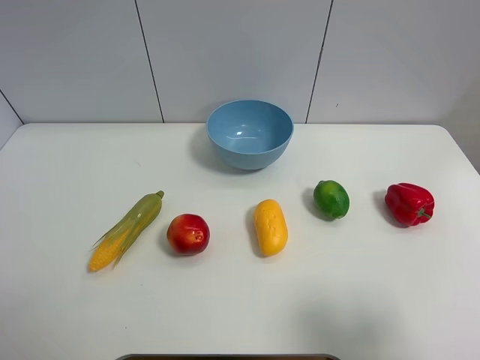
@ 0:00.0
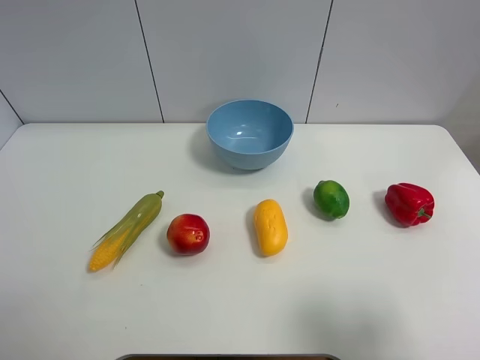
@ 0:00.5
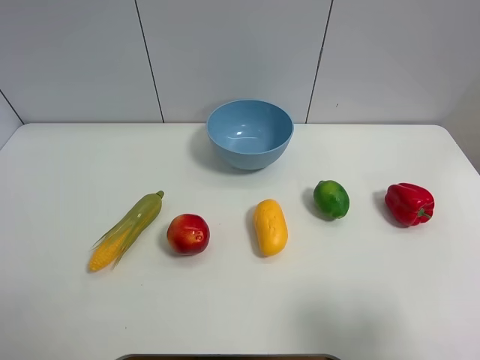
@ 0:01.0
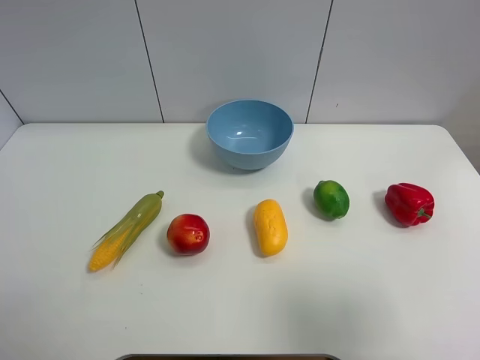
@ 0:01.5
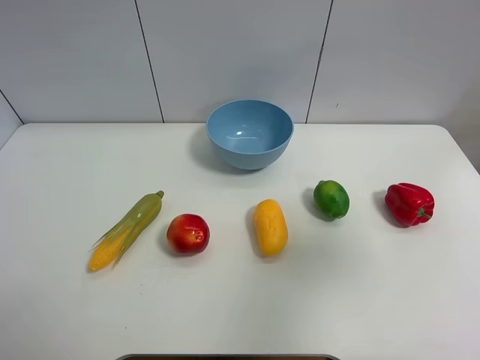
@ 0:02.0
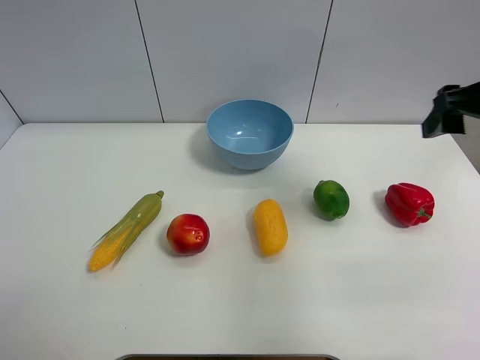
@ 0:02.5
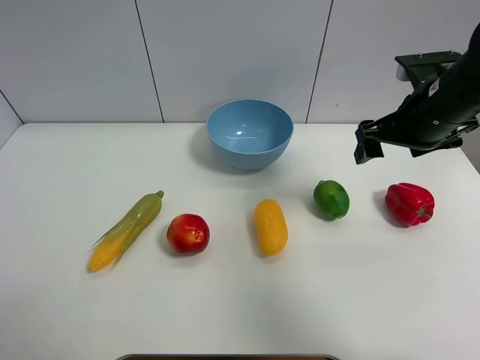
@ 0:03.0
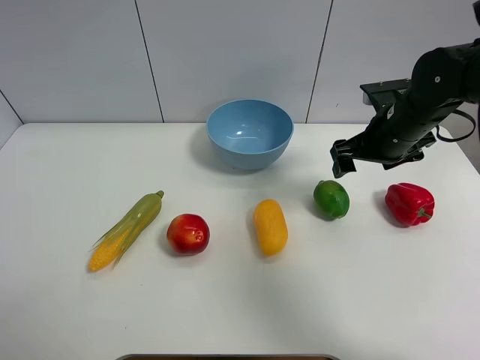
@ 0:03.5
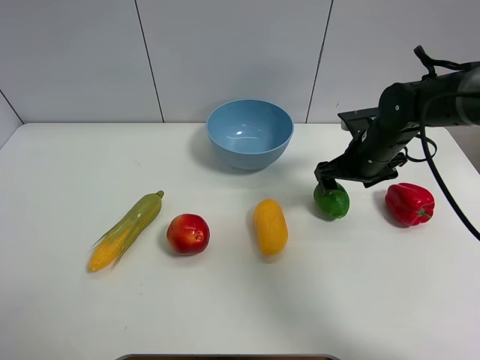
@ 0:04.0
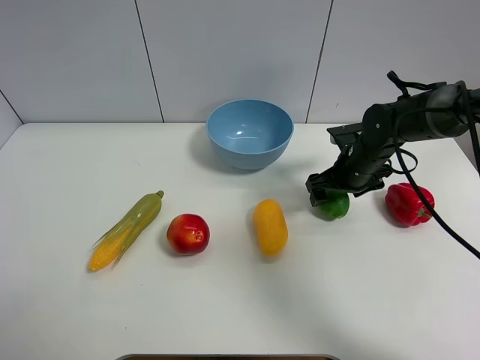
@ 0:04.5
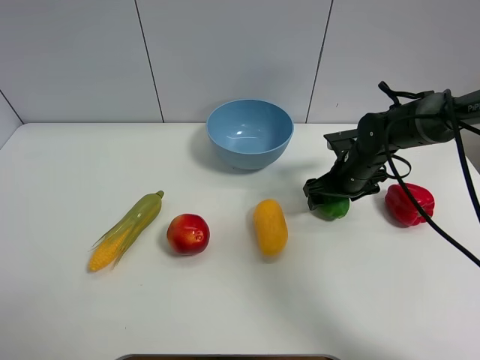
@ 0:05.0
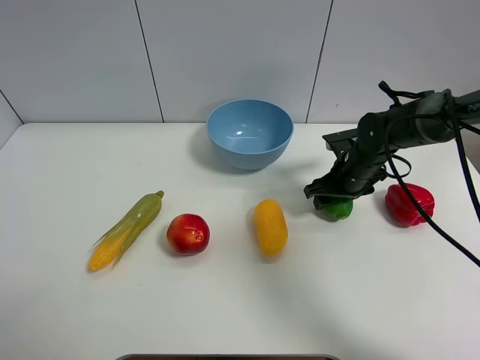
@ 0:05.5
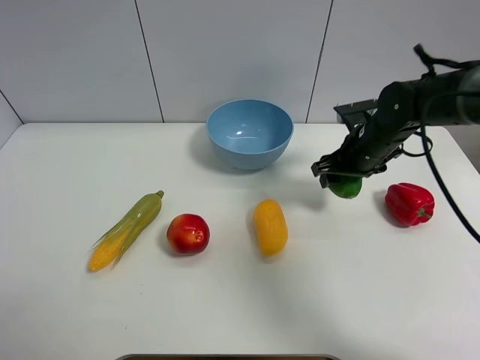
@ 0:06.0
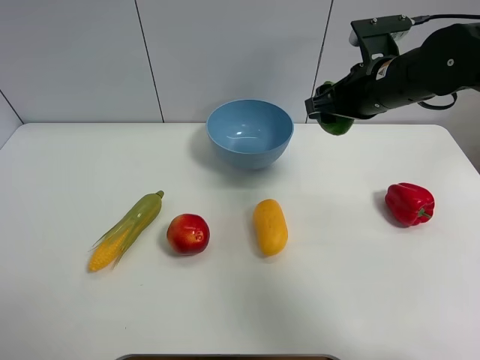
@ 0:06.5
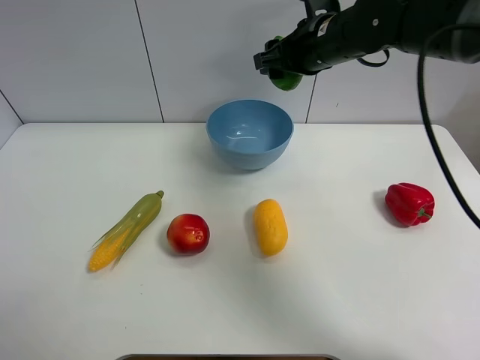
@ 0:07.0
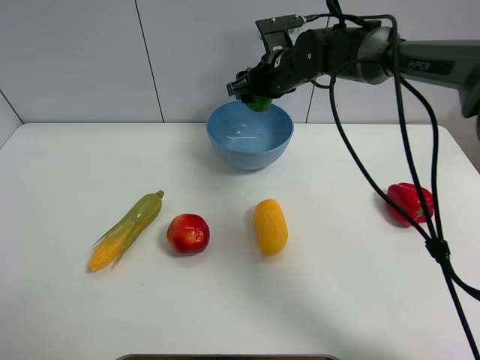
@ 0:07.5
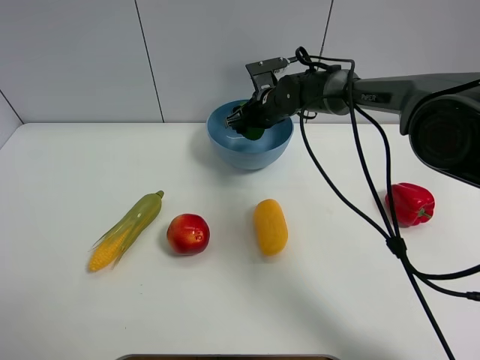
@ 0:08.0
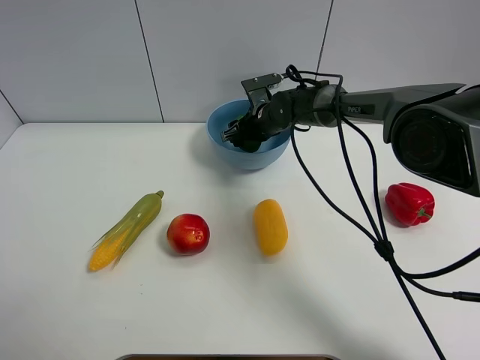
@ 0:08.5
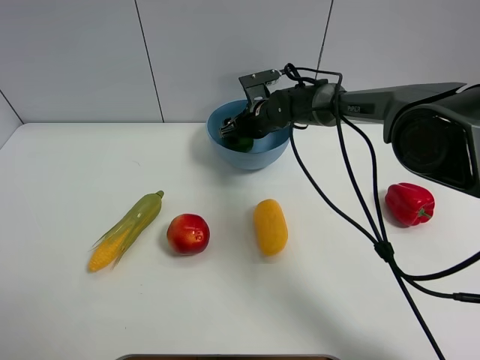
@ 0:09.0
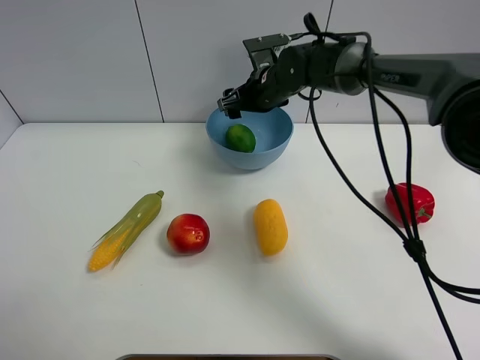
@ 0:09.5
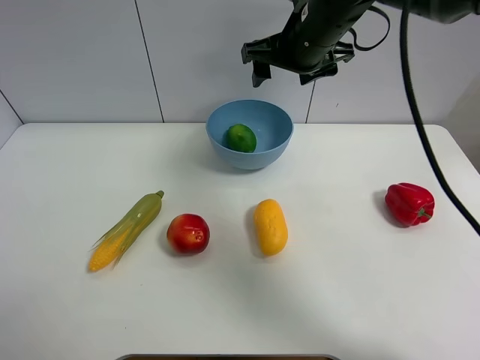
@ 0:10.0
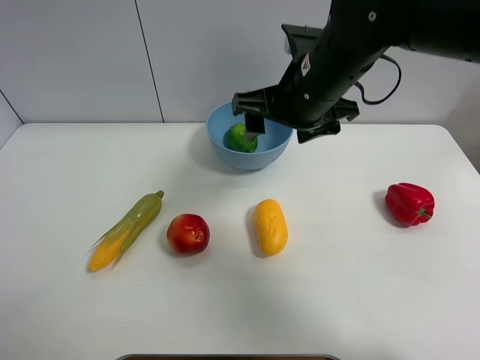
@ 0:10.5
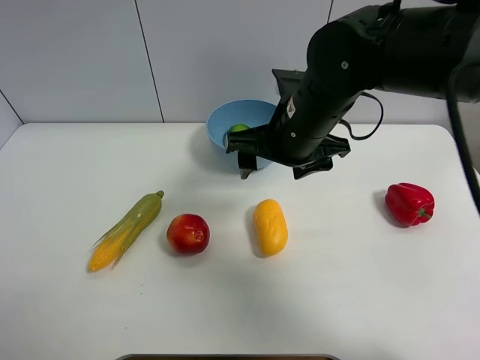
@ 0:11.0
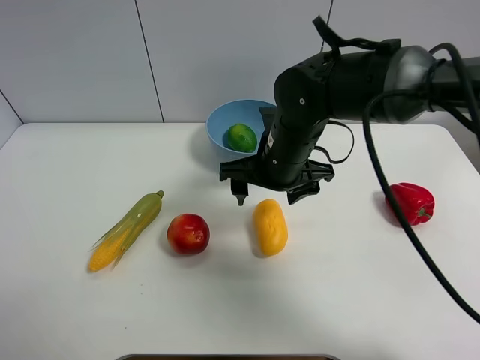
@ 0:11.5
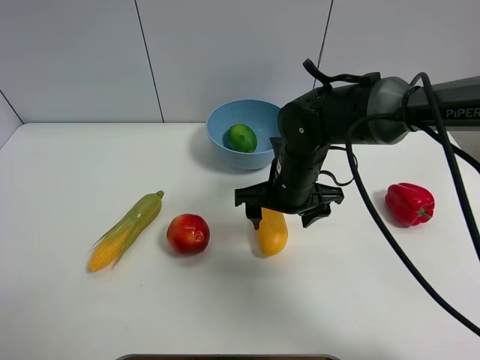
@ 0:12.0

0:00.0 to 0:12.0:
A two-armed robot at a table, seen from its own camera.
Task of the whole recording: Put the three fruits on the table into a bowl.
Step, 0:00.0 to 0:05.0: Grasp the green lemon with right gripper.
Step, 0:05.5 to 0:09.0: Place the green lemon in the blue bowl with right gripper.
0:00.0 to 0:02.0: The right gripper heads forward and upward, covering approximately 15 cm.
0:02.0 to 0:04.0: The right gripper moves forward and downward, roughly 35 cm.
0:04.0 to 0:06.0: The right gripper closes up.
0:06.0 to 0:08.0: The right gripper goes approximately 20 cm to the left and forward, and travels upward and back again, some 10 cm each way.
0:08.0 to 0:10.0: The right gripper moves upward and backward, about 20 cm, and opens its fingers.
0:10.0 to 0:12.0: The right gripper heads downward and backward, covering some 20 cm.

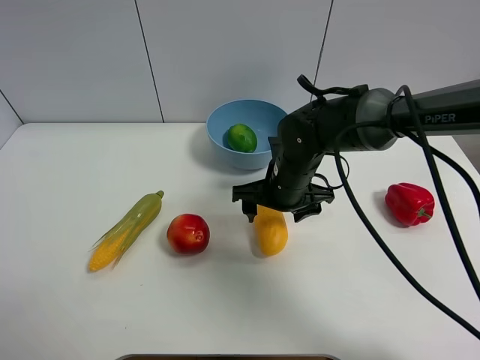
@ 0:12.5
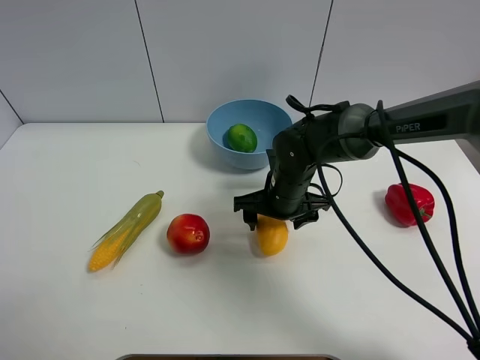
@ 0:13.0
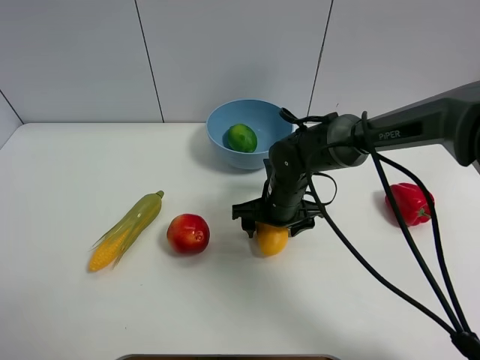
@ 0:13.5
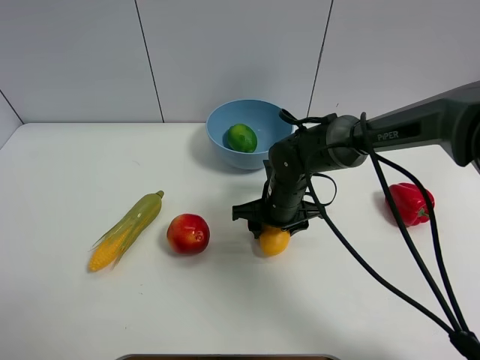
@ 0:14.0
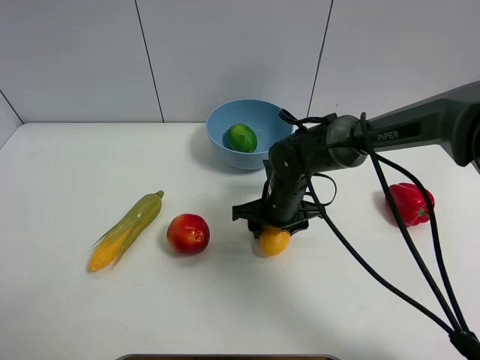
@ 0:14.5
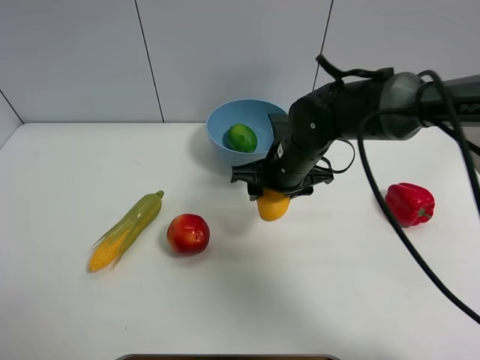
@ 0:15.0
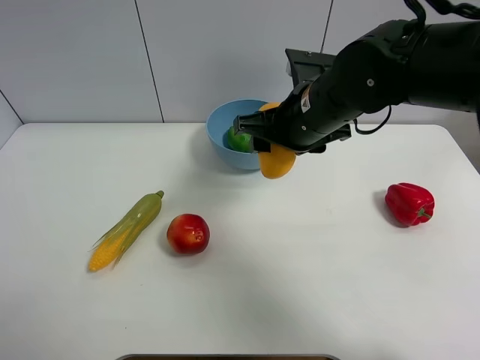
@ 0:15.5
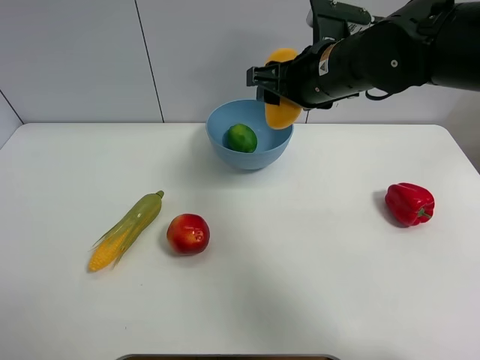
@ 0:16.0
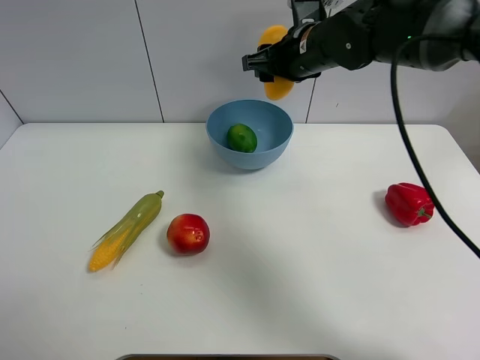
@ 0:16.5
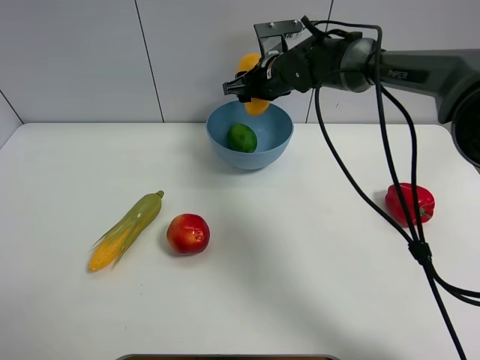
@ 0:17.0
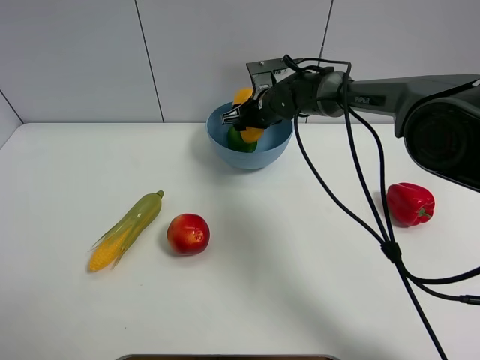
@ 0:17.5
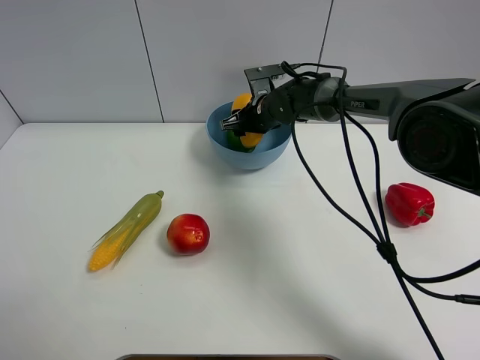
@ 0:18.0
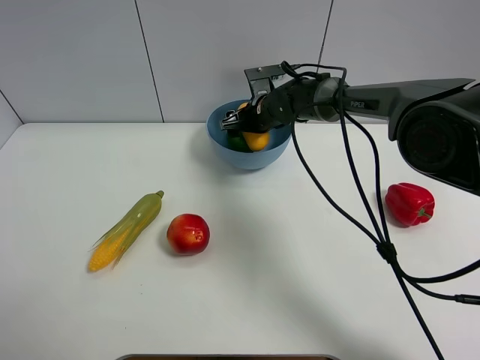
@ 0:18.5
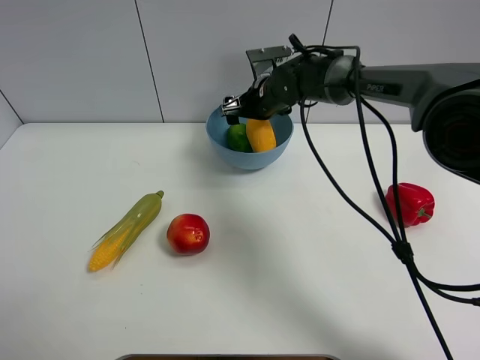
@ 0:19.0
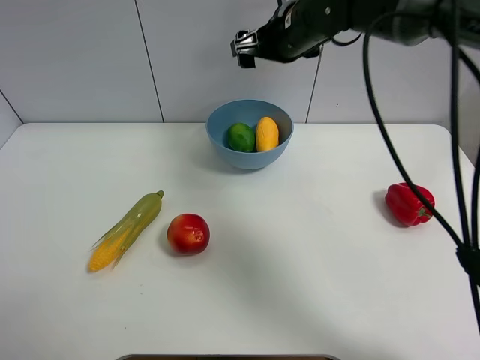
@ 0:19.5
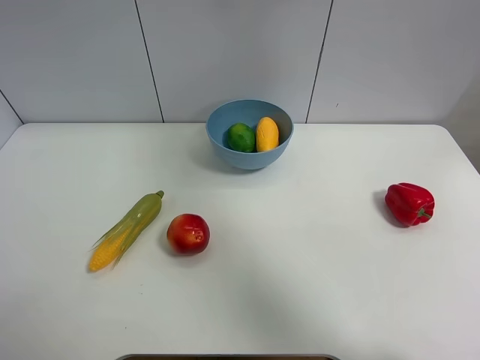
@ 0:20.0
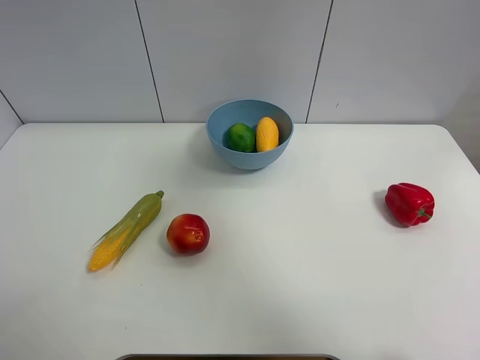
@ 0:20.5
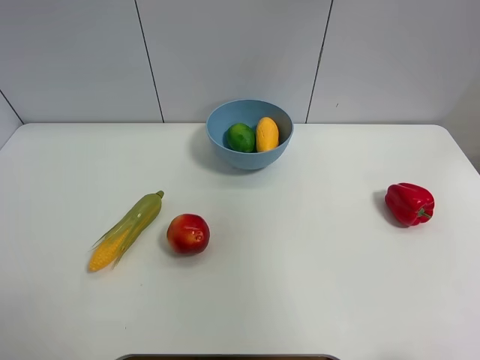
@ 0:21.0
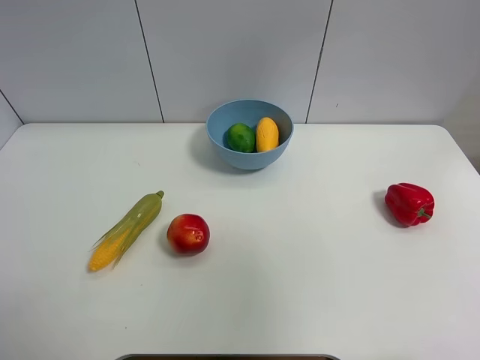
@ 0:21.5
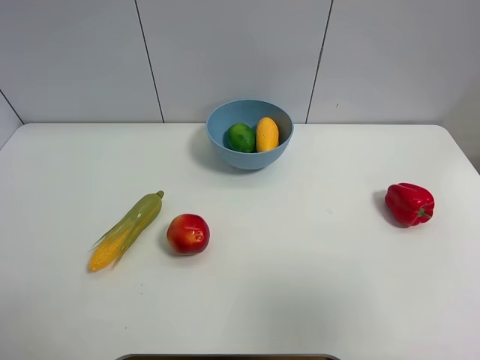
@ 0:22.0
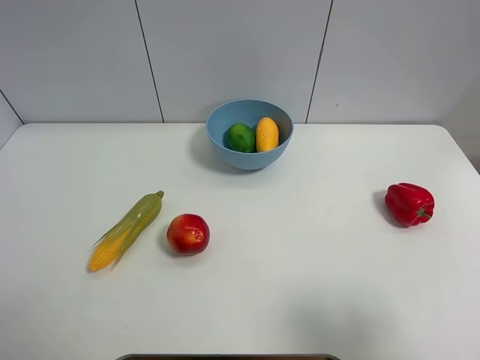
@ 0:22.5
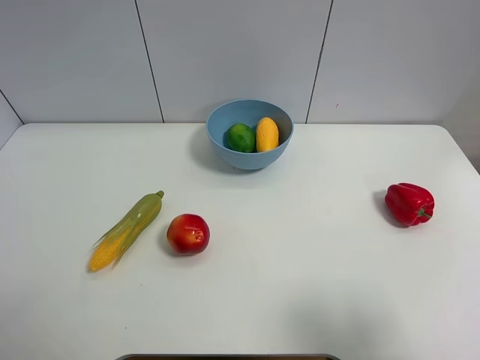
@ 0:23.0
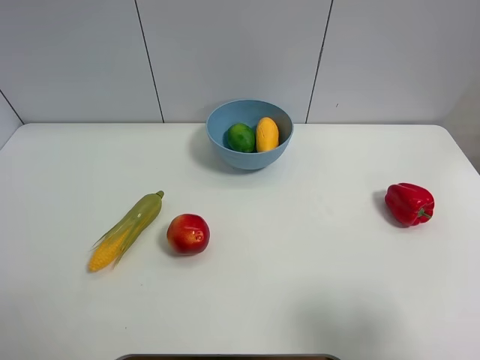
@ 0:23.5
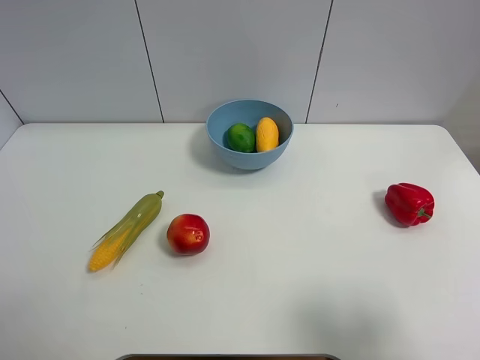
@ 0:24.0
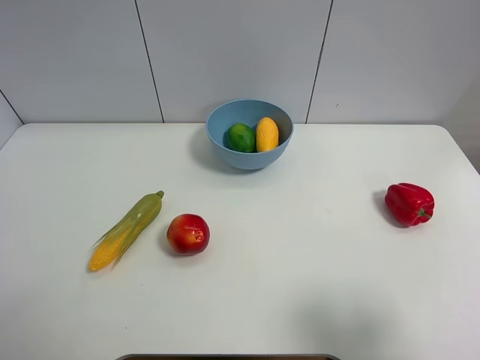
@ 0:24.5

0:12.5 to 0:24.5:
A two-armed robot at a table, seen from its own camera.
Task of the whole recording: Put the three fruits on the table into a bowl.
Step, 0:14.5 to 0:19.0: Place the mango in the blue bowl with right gripper.
0:12.5 to 0:14.5: The right gripper goes some 5 cm downward, and closes its fingers.
0:14.5 to 0:16.5: The right gripper is displaced upward and forward by approximately 20 cm.
0:16.5 to 0:18.5: The right gripper moves downward and forward, some 15 cm, and opens its fingers.
0:18.5 to 0:20.5: The right gripper is displaced upward and backward by approximately 50 cm.
0:20.5 to 0:22.5: The right gripper goes roughly 30 cm backward and downward.

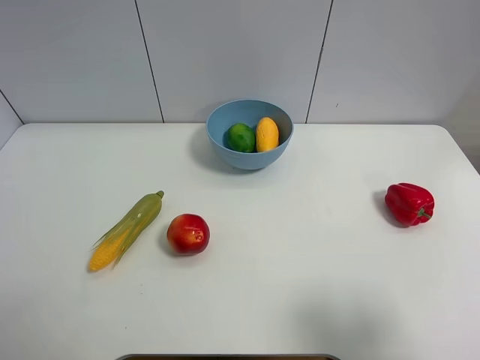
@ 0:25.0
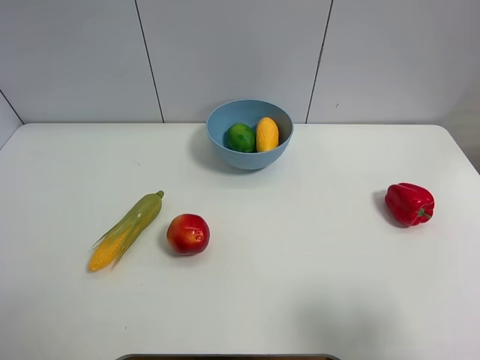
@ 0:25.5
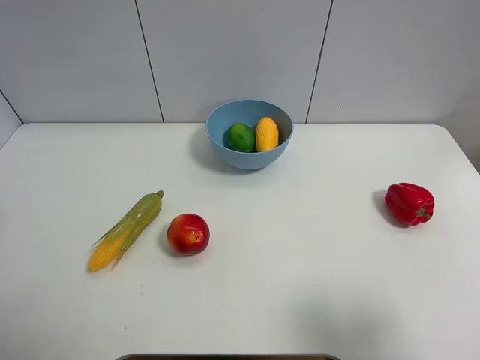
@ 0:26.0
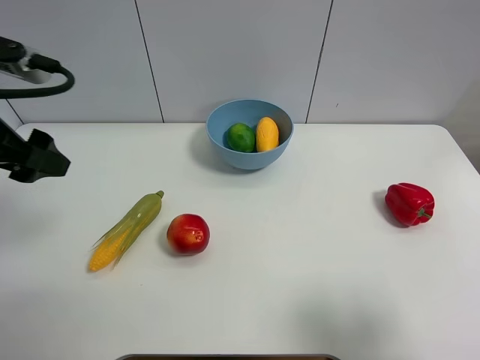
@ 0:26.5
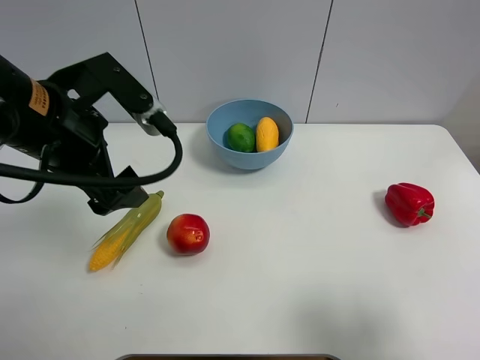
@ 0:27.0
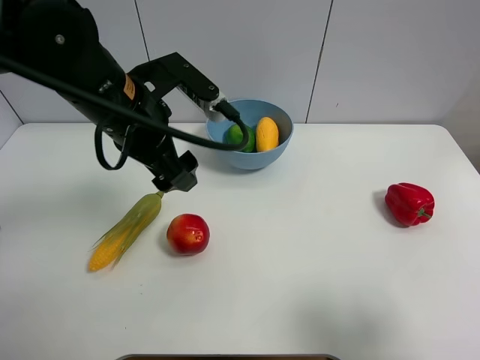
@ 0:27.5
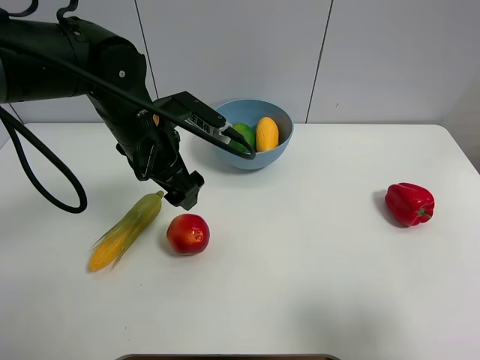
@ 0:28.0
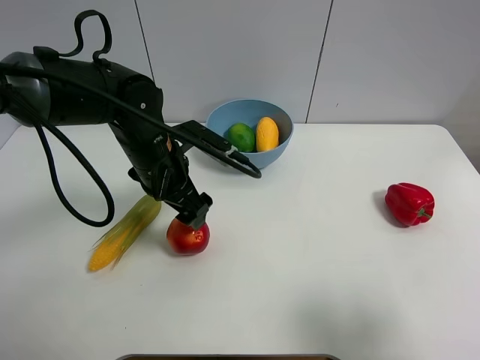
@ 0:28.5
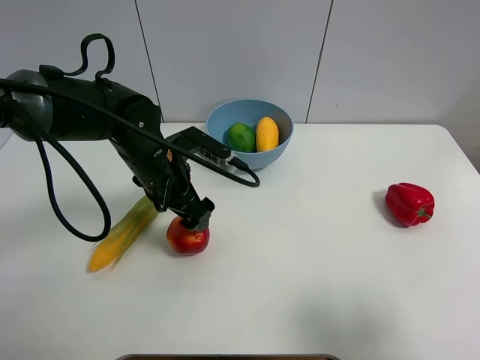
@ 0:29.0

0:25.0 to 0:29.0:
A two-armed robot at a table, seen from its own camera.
Task of the whole recording: Put the three fruits on the table into a bowl.
0:25.0 to 0:27.0: The left gripper moves forward and to the right, roughly 25 cm.
0:27.0 to 0:29.0: The left gripper moves downward, forward and to the right, approximately 15 cm.
